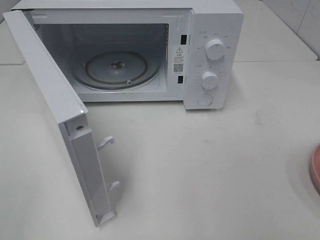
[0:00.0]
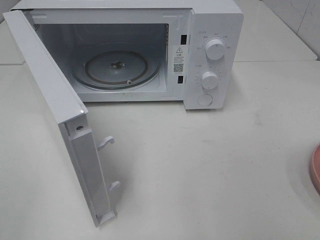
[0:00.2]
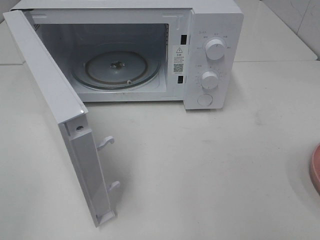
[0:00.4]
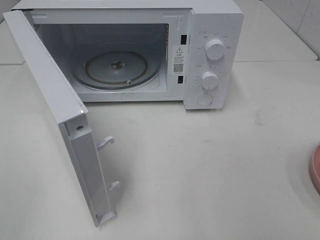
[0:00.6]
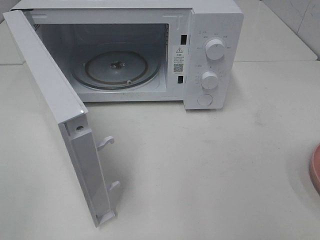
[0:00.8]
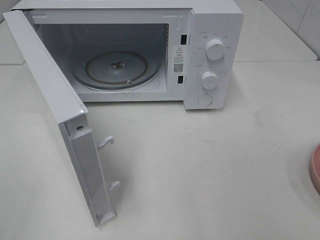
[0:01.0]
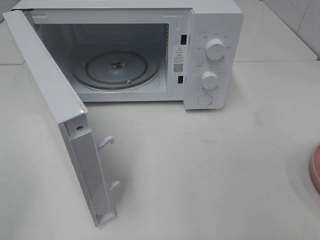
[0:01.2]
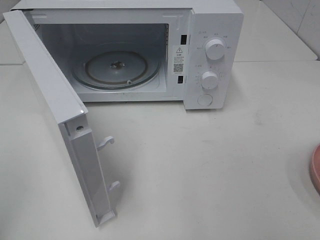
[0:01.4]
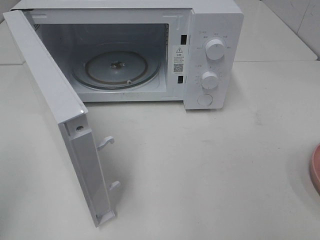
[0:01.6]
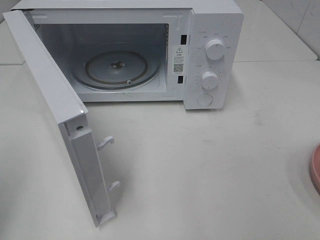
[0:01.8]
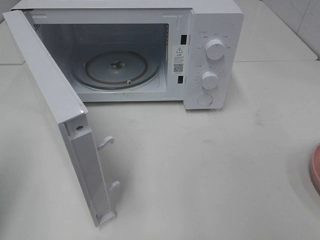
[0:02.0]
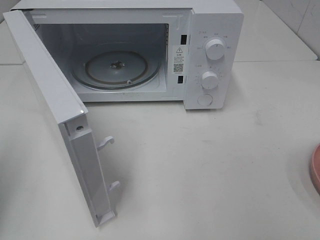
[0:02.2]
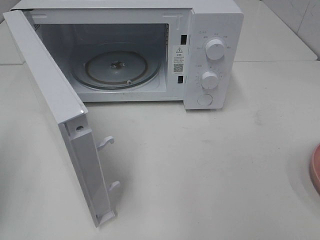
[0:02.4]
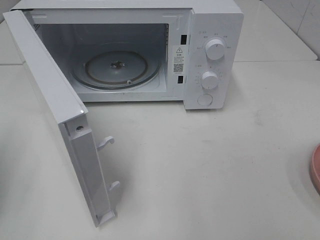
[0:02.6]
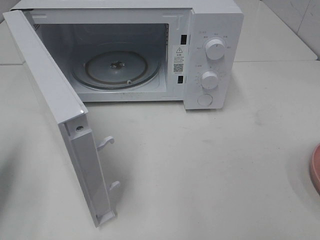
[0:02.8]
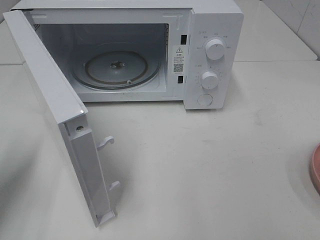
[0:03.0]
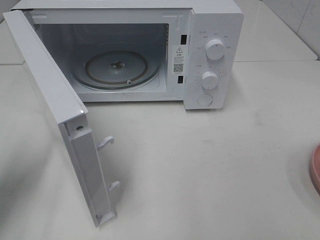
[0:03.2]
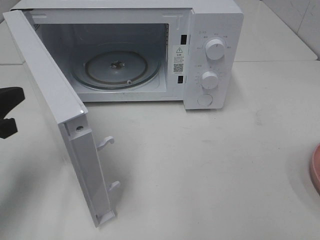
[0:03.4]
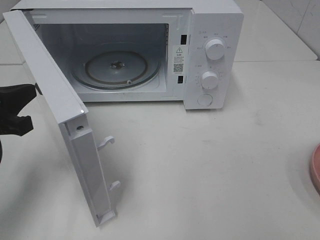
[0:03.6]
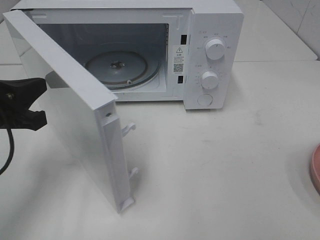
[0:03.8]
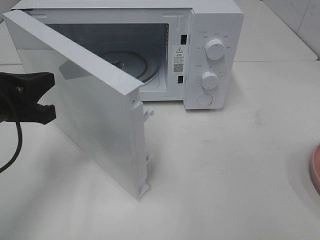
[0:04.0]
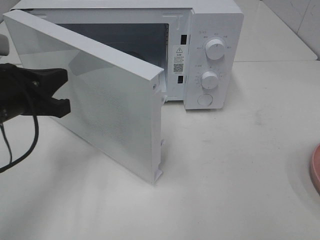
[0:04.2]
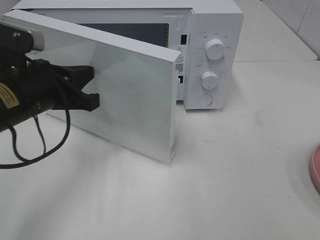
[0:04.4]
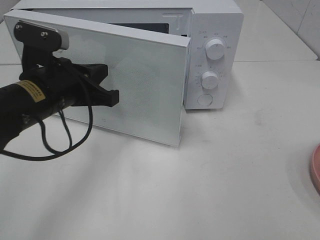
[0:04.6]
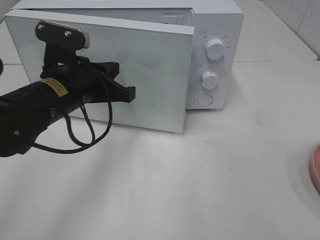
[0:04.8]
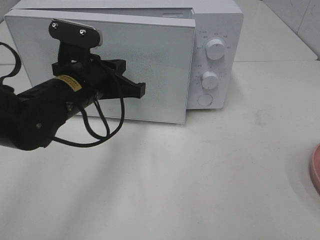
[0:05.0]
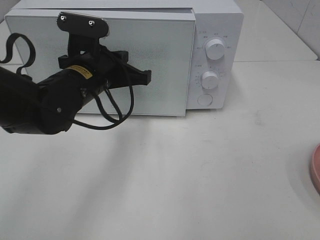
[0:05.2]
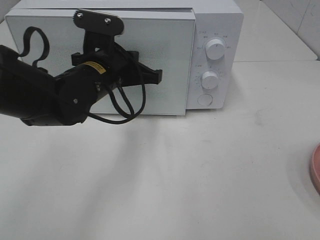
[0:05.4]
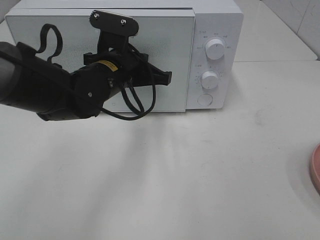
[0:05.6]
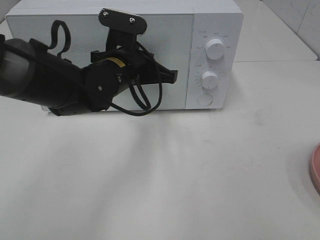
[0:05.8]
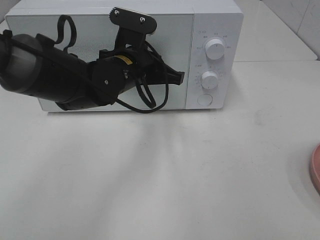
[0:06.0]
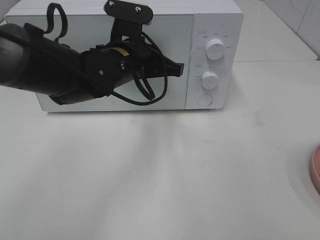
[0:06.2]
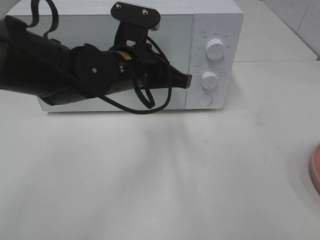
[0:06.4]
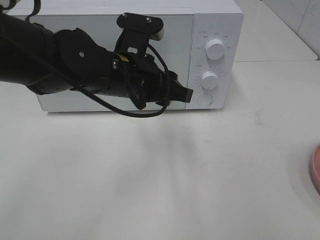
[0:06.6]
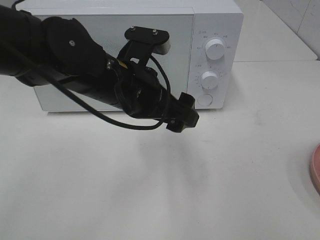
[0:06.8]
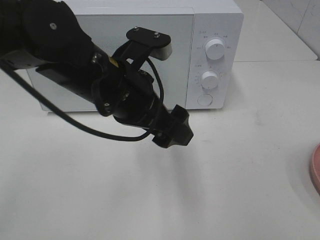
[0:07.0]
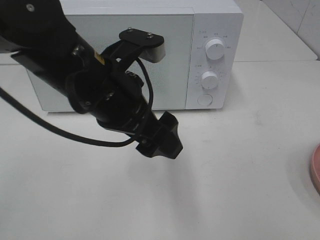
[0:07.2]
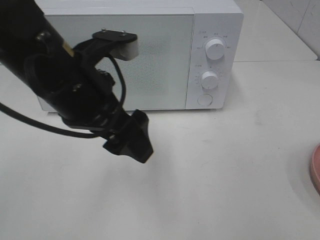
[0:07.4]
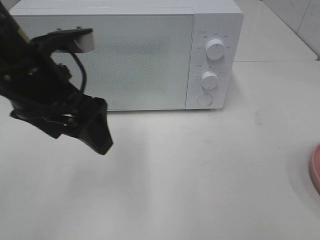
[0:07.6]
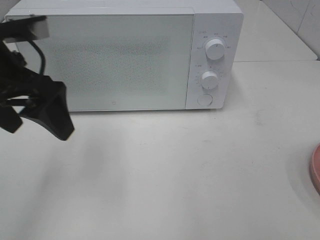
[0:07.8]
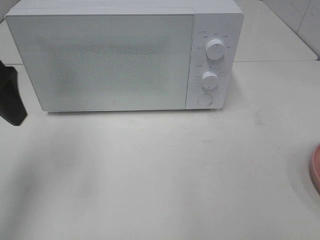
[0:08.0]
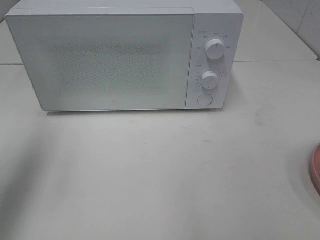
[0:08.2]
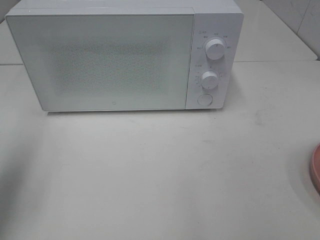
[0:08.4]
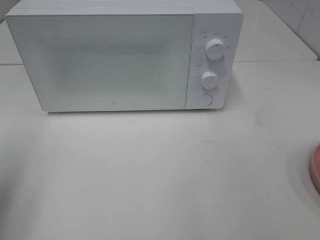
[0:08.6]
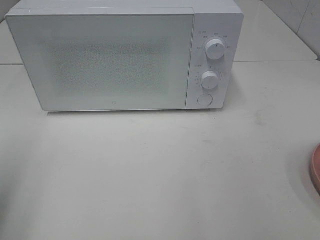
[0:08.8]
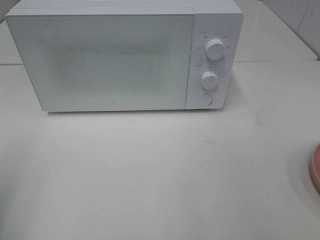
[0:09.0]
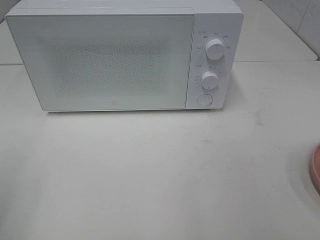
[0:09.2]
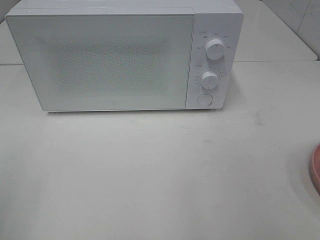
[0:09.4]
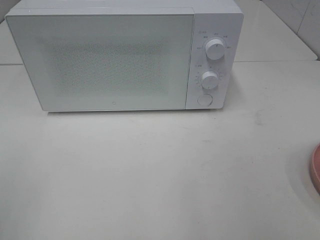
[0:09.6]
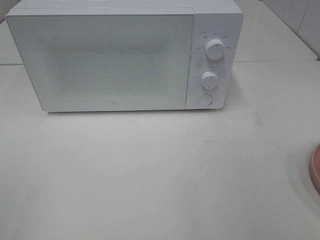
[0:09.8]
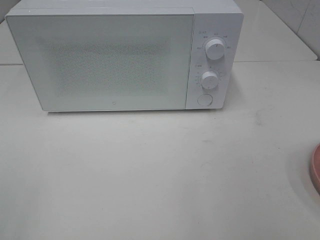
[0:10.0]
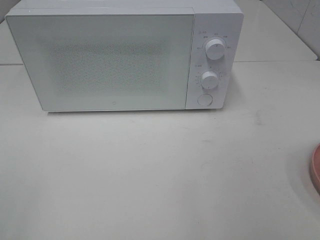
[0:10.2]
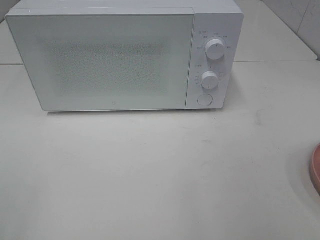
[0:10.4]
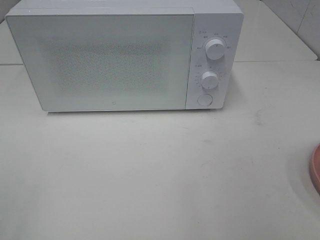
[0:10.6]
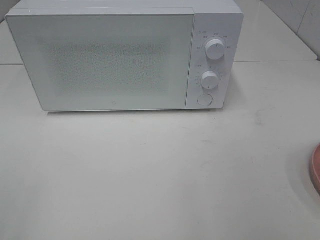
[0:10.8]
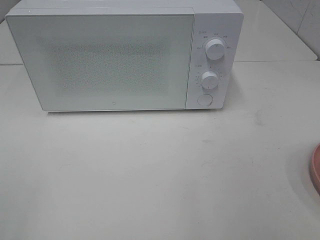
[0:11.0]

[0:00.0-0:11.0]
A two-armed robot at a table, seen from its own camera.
Task of the whole recording: Heat the burger.
Step, 0:00.0 to 0:06.4: Left hand: close the microwave door.
0:01.6 to 0:03.2: The left gripper is displaced forward and downward by about 15 cm.
0:03.2 to 0:04.8: The left gripper heads to the right and forward, covering roughly 20 cm.
0:04.8 to 0:06.2: The left gripper is displaced to the right and forward by some 10 cm.
0:06.2 to 0:07.8: The left gripper goes approximately 20 cm to the left, upward and backward, and opens.
0:07.8 to 0:09.4: The left gripper shifts about 25 cm backward and to the left.

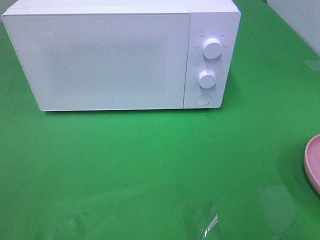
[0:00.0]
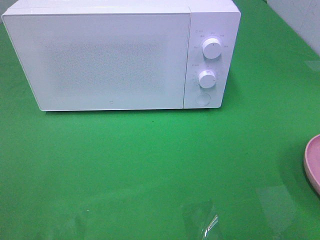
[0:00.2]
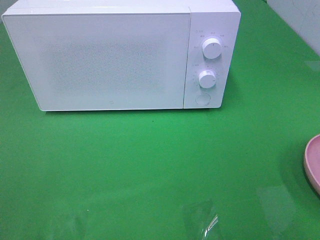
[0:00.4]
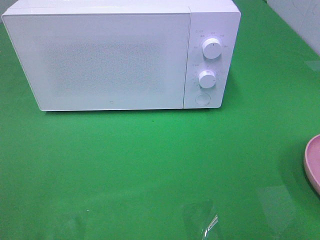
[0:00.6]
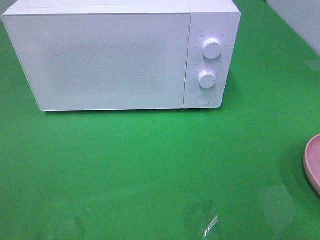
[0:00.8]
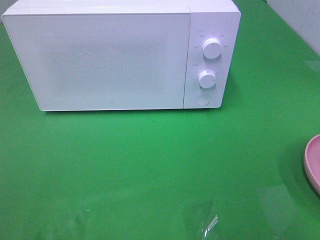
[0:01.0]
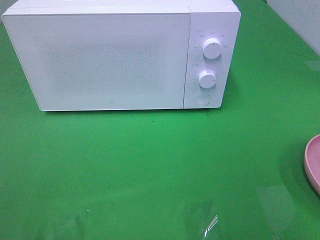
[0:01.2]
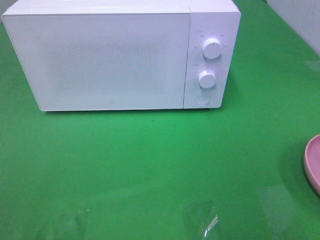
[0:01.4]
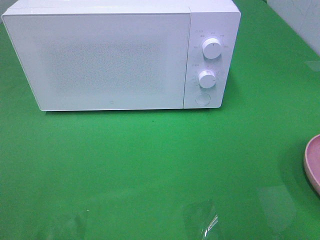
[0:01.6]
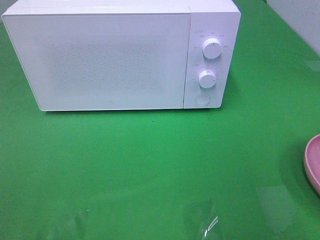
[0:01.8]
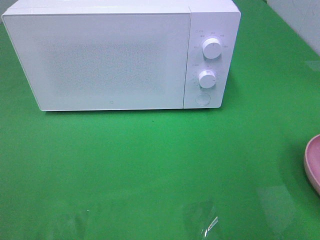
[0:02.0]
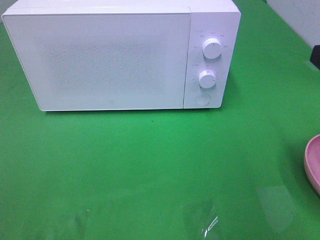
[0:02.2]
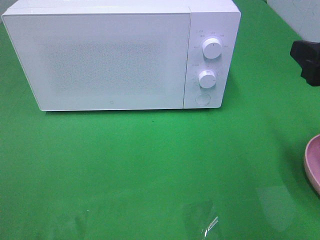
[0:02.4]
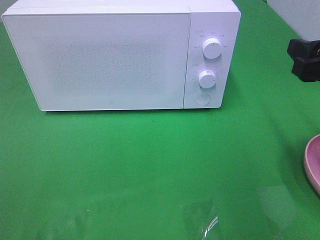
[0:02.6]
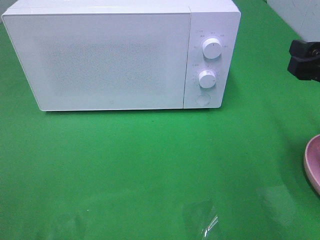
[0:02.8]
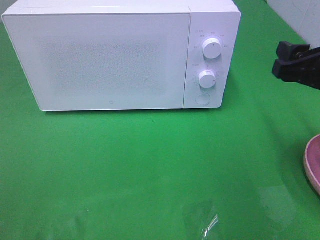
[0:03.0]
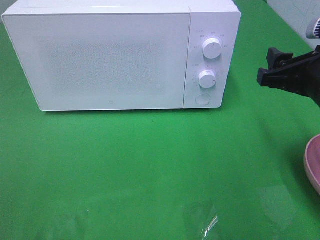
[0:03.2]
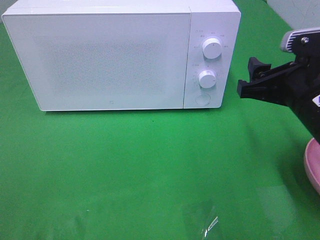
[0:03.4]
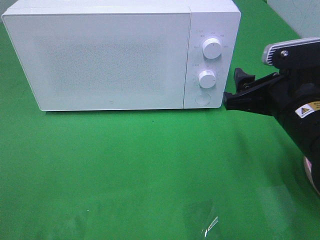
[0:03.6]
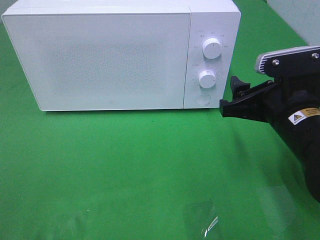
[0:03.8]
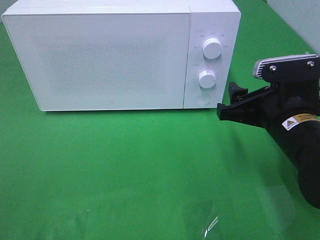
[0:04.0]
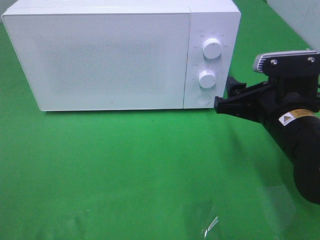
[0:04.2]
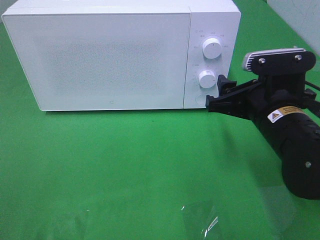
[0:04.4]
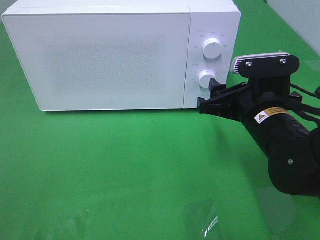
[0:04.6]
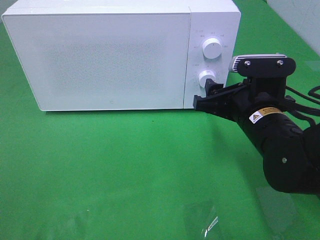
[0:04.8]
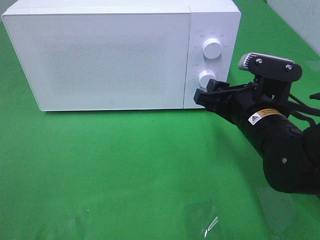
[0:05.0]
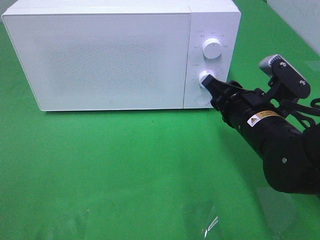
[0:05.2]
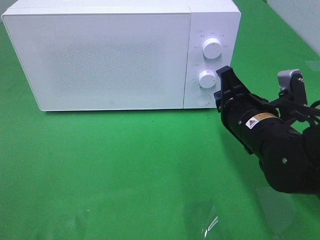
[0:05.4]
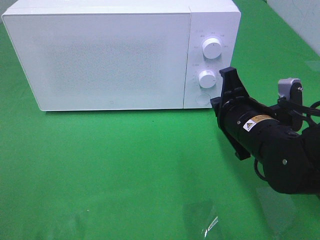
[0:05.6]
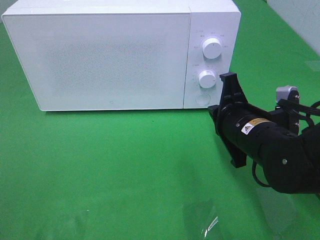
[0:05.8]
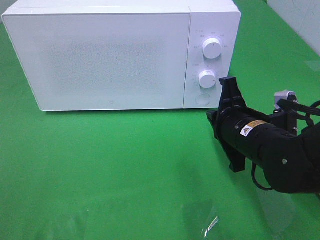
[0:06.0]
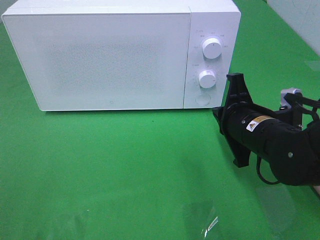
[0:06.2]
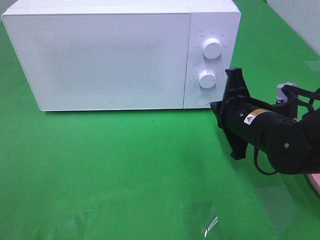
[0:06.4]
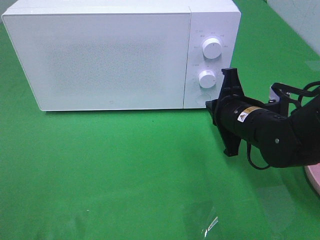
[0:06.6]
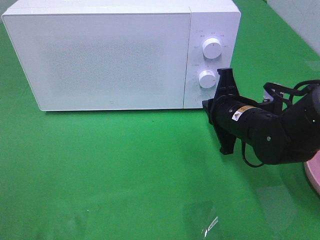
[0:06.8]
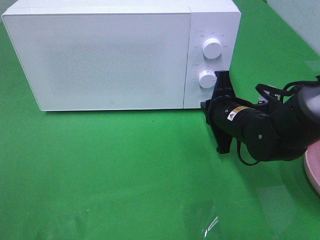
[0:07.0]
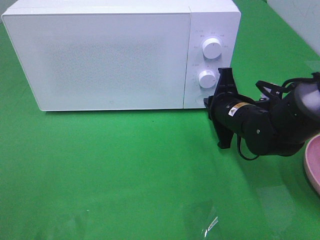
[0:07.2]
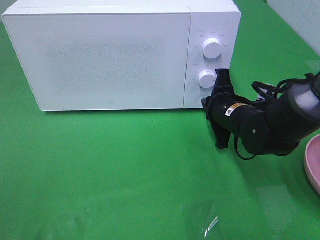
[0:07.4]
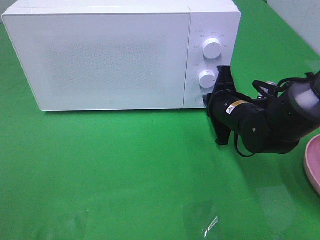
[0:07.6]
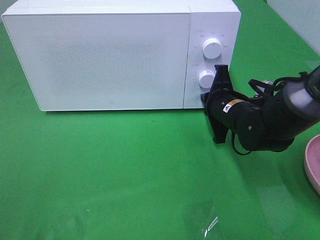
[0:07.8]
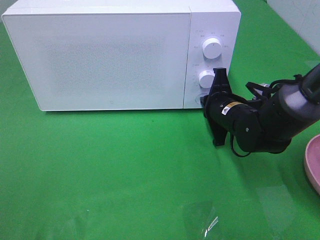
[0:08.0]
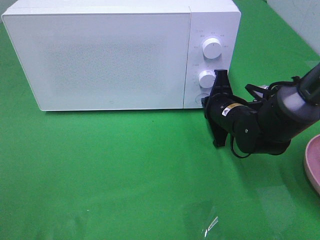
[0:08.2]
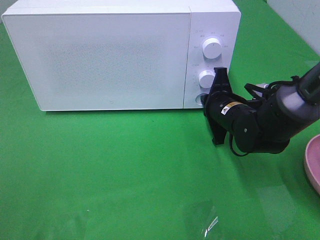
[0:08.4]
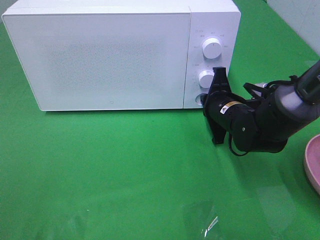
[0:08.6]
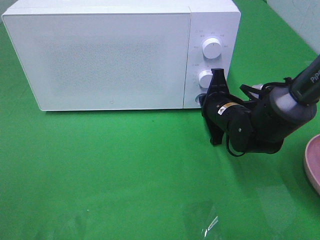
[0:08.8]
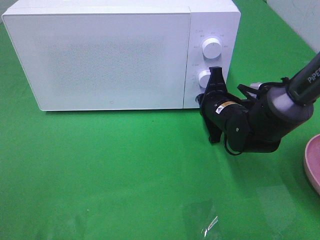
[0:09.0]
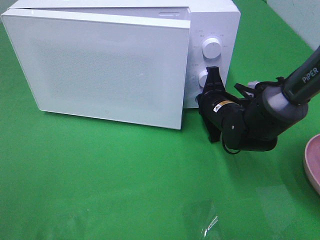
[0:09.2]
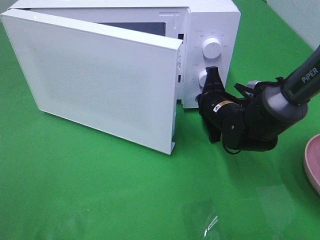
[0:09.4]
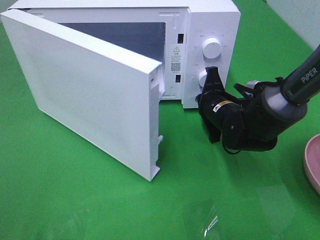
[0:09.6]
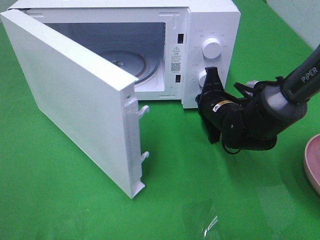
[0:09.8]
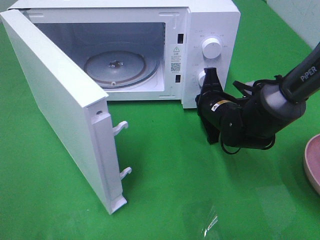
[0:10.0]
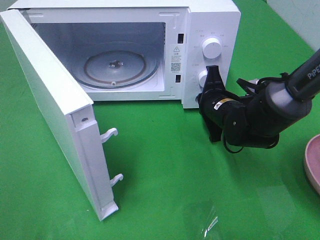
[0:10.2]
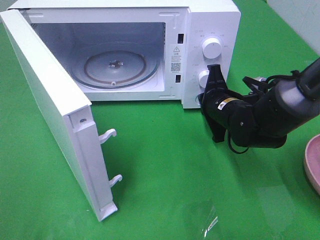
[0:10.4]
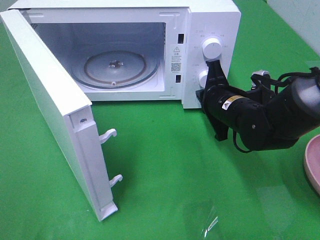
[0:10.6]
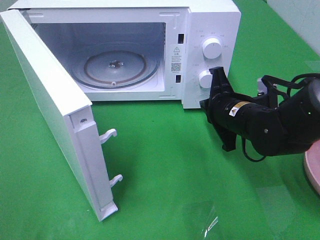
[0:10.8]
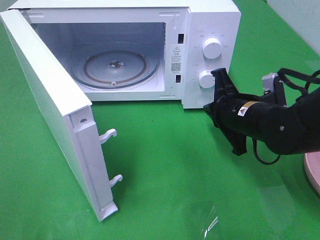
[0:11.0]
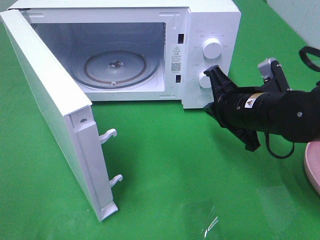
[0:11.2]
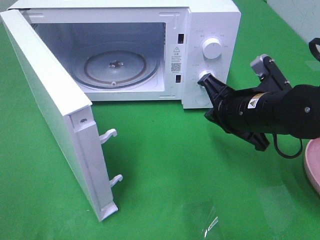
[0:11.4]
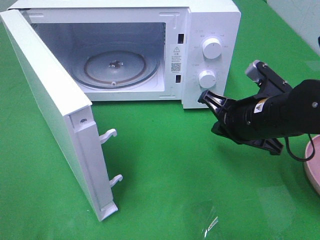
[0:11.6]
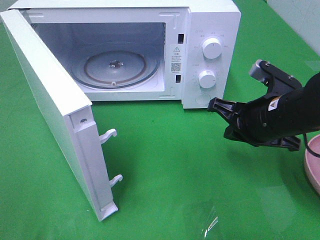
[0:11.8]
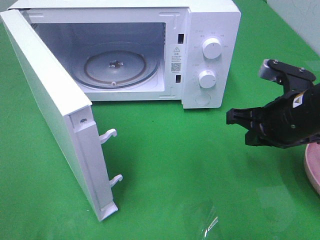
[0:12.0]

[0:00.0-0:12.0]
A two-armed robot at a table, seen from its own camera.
Task of the whole recording: Heat the burger.
Step, 0:00.0 to 0:10.8: Right hand: press the switch.
0:01.6 to 0:03.0: The right gripper heads forward and downward, covering approximately 15 cm.
0:03.0 to 0:04.4: The right gripper is displaced to the left and downward by approximately 10 cm.
0:04.4 to 0:06.0: The right gripper closes.
0:06.0 to 0:07.6: The right gripper goes some 10 cm forward.
0:07.6 to 0:09.0: There are only small adjustments of the grippers.
0:10.4 to 0:12.0: The right gripper heads backward, upward and to the right, covering roughly 15 cm.
